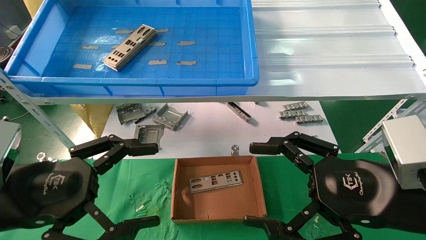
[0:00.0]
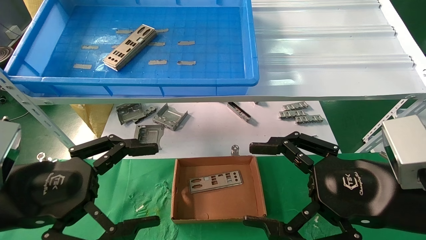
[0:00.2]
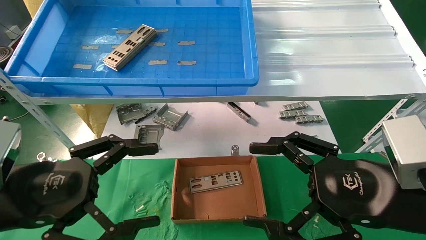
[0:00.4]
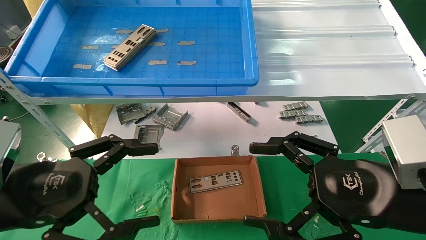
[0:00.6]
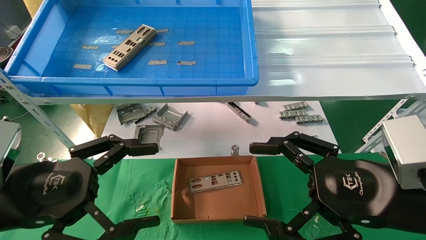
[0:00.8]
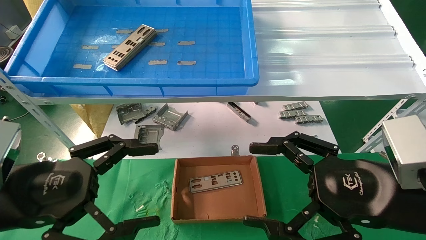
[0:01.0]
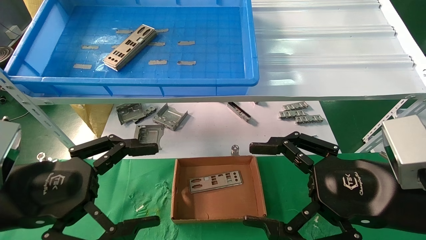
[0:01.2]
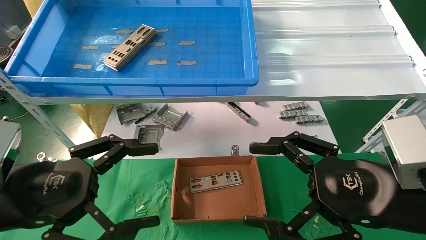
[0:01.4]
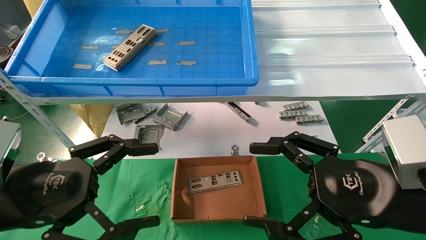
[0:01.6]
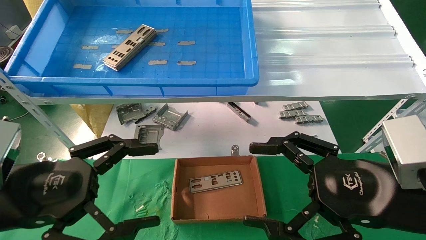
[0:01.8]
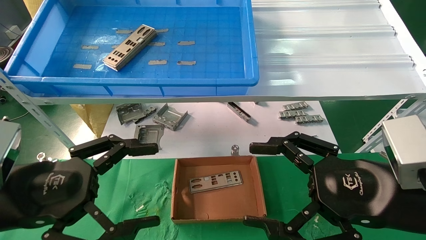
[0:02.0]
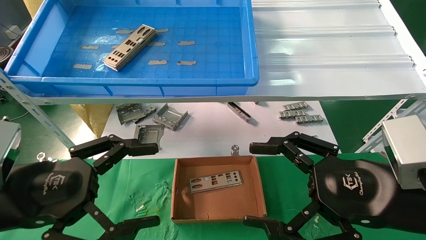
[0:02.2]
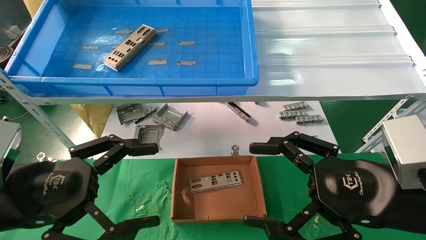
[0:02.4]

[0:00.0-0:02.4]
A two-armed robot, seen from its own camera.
Task of the whole recording: pick up the parts on the tray and put them in the cardboard box.
0:00.0 to 0:02.4: Both grippers stay put.
